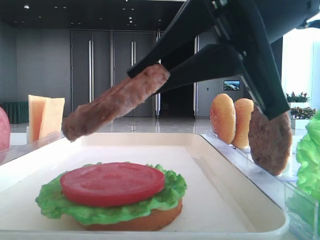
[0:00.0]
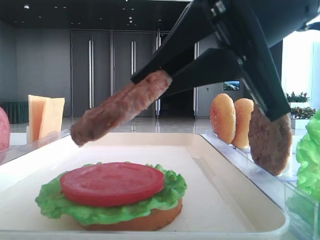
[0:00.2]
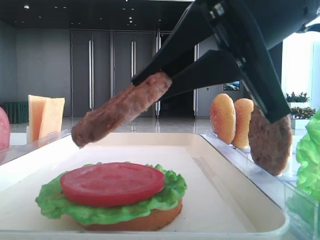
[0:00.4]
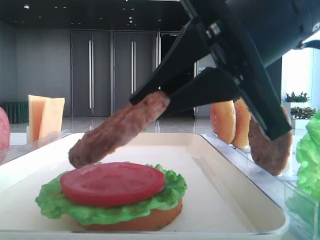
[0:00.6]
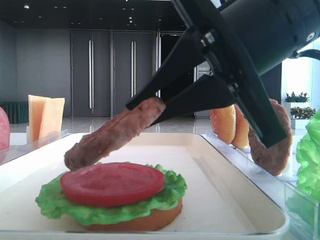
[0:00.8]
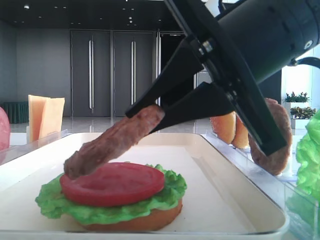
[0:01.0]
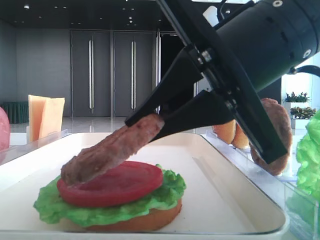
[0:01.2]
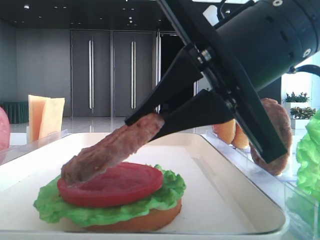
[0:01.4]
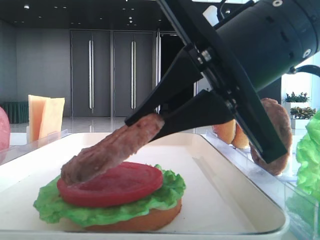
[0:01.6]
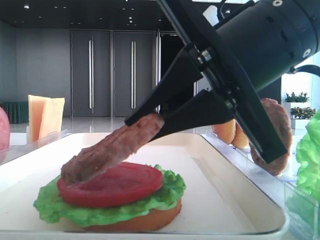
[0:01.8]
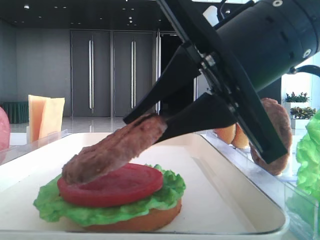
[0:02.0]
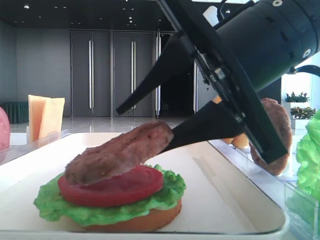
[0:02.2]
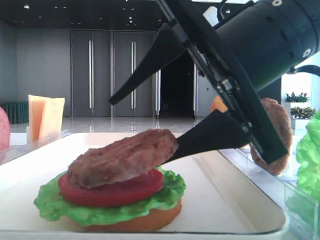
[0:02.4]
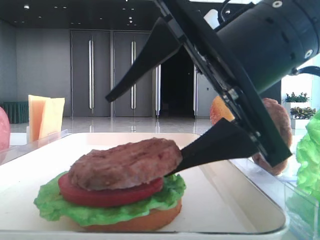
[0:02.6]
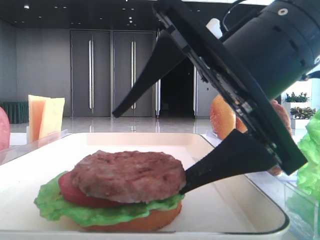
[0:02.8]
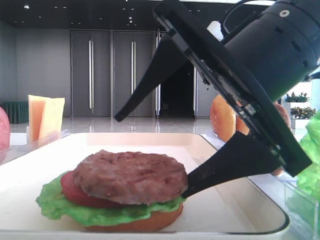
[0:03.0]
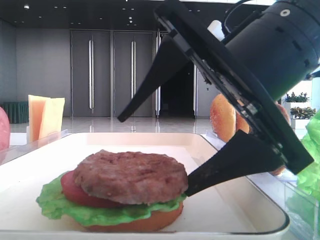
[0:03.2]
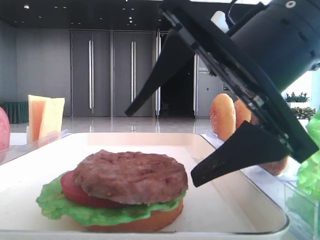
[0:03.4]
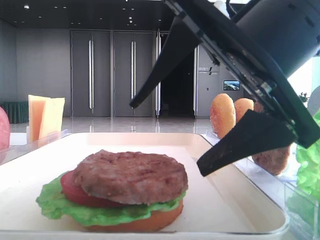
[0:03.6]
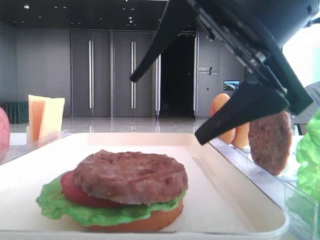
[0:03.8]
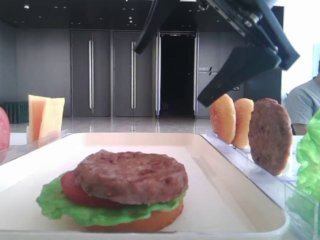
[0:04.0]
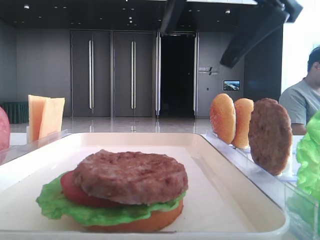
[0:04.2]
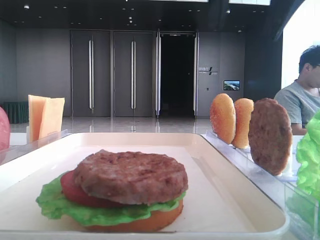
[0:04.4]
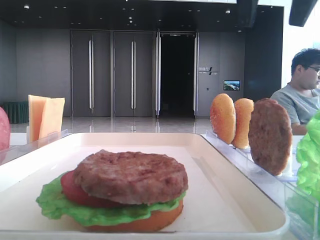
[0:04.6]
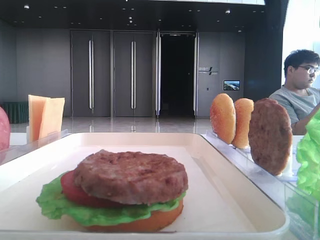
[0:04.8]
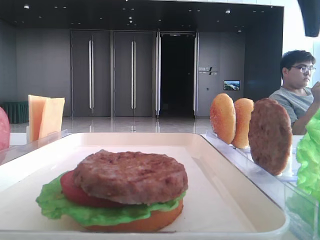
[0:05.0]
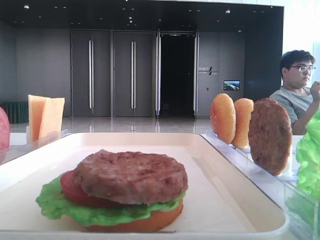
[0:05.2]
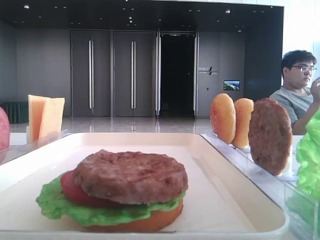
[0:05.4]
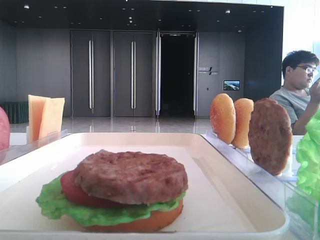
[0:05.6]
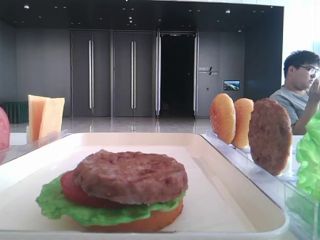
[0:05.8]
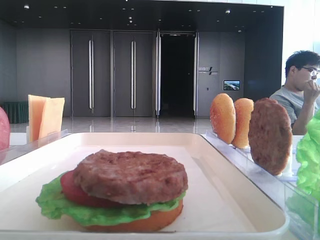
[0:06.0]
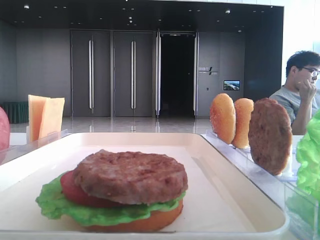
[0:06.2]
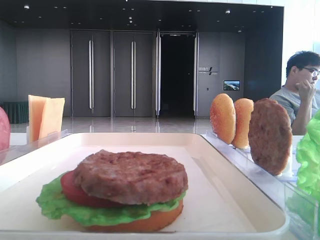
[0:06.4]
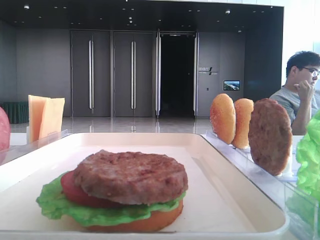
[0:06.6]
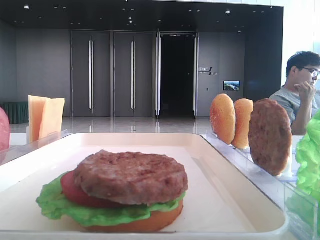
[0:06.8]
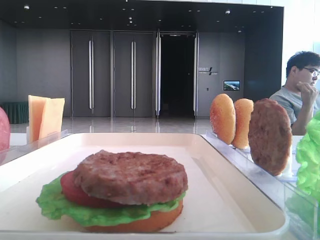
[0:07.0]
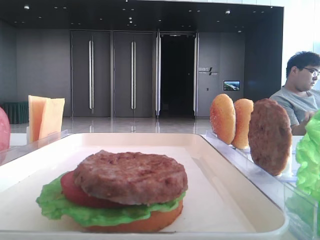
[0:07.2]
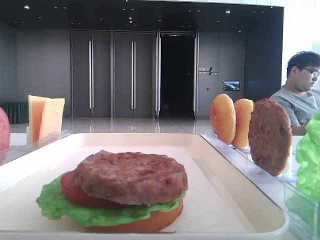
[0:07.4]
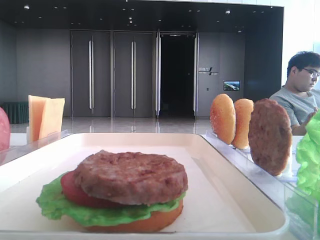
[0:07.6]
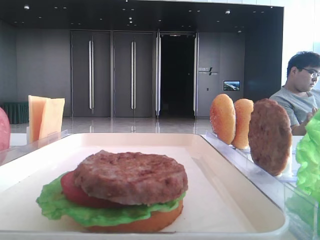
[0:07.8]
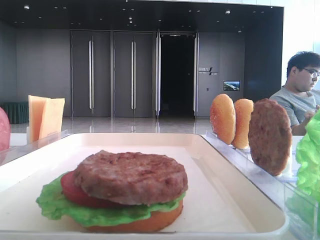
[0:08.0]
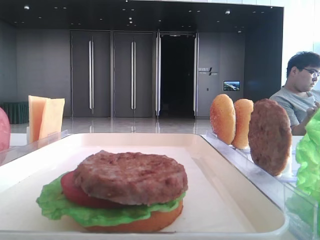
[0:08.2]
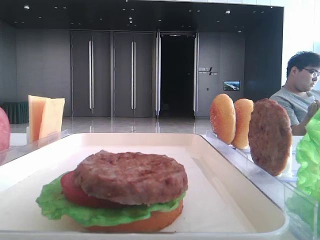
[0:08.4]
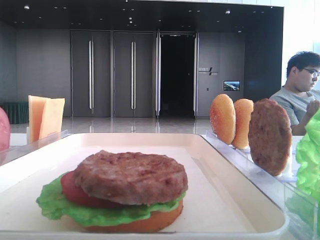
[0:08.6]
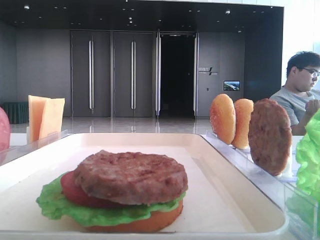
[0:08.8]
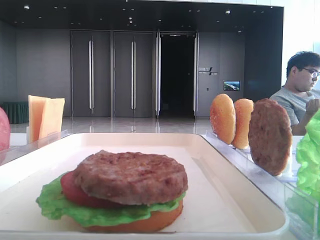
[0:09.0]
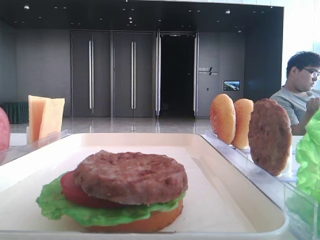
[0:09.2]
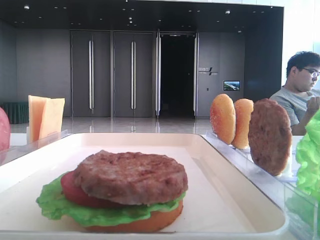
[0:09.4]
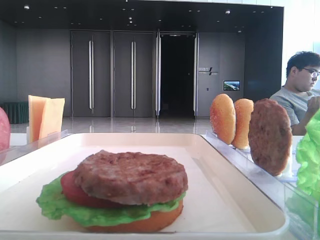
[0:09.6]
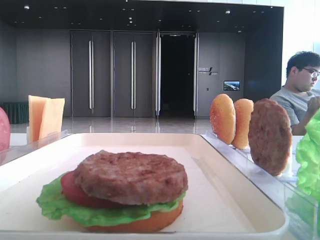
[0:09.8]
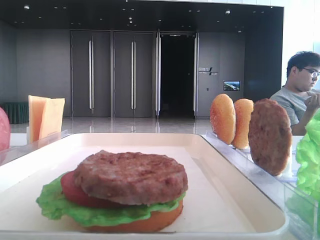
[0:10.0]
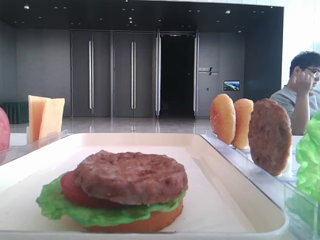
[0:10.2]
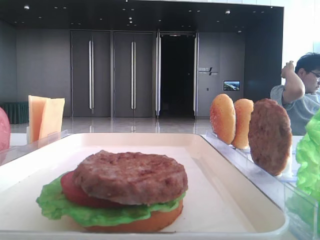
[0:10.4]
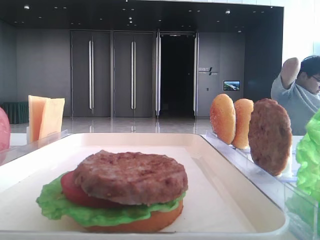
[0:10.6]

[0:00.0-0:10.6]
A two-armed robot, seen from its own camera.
Step, 0:00.0 to 0:03.2: Place the patty on the tomato slice with the right hand.
0:01.6 to 0:03.0: The right gripper opens its fingers.
0:03.0 to 0:04.6: The right gripper goes about 20 cm upward and forward.
0:04.6 to 0:06.0: The right gripper goes roughly 20 cm to the right.
0:06.0 to 0:07.6: The right gripper travels backward by about 35 cm.
0:09.0 to 0:10.6: The grippers move only a little.

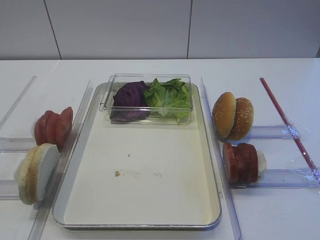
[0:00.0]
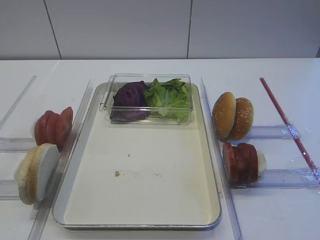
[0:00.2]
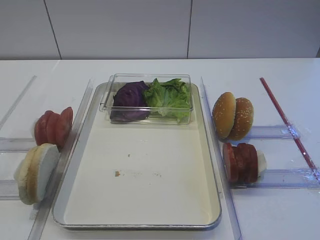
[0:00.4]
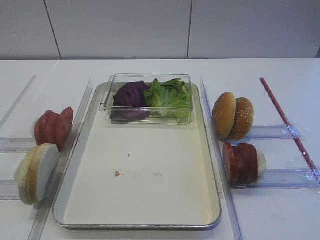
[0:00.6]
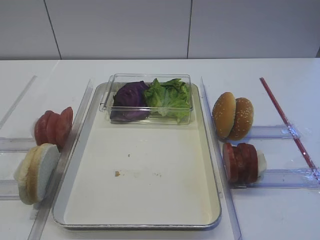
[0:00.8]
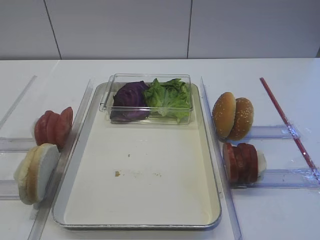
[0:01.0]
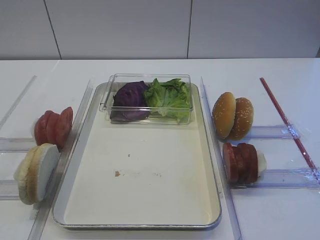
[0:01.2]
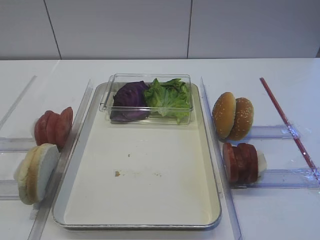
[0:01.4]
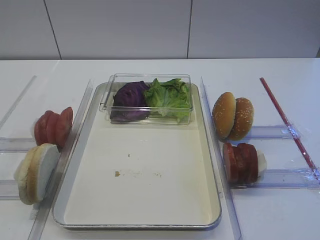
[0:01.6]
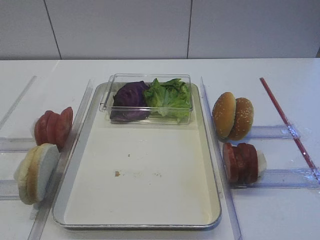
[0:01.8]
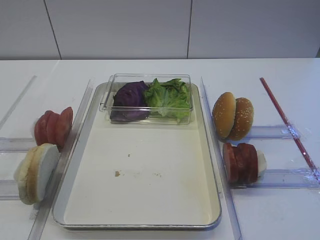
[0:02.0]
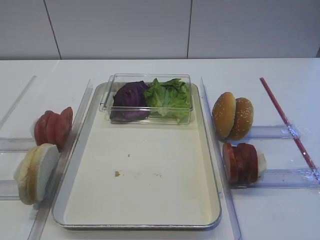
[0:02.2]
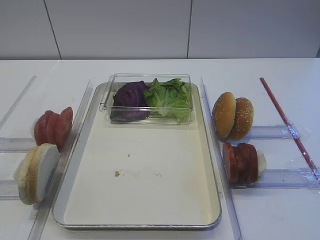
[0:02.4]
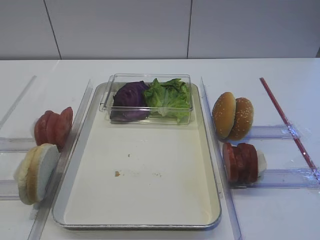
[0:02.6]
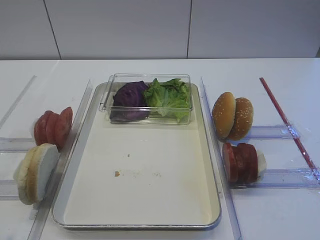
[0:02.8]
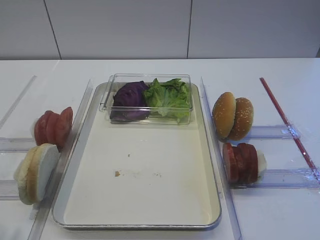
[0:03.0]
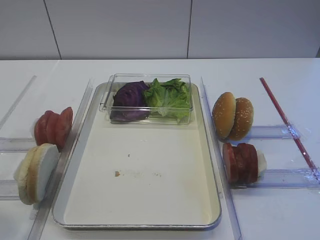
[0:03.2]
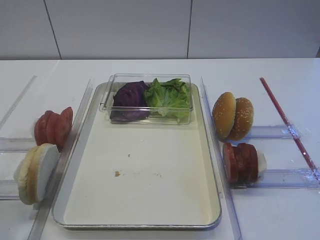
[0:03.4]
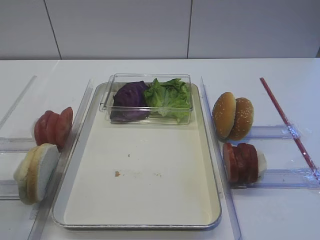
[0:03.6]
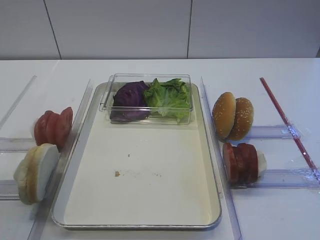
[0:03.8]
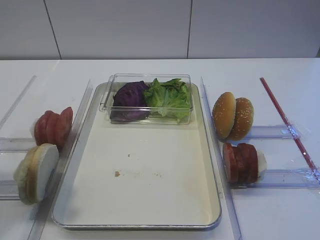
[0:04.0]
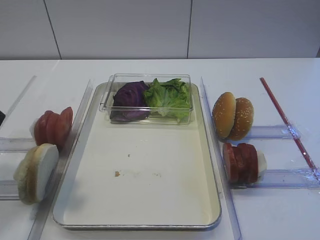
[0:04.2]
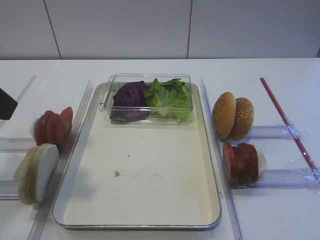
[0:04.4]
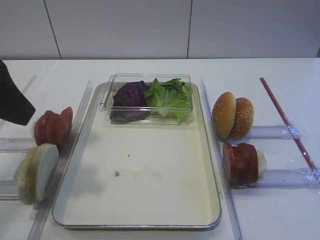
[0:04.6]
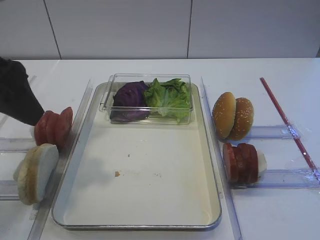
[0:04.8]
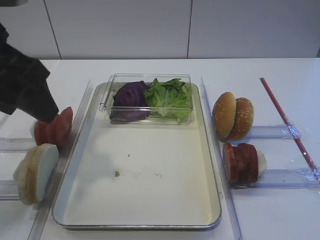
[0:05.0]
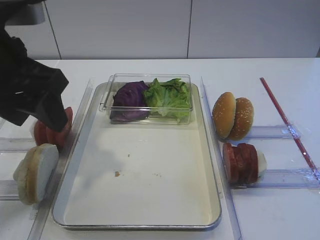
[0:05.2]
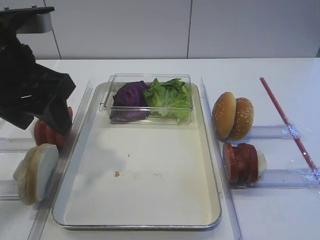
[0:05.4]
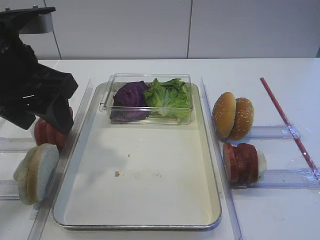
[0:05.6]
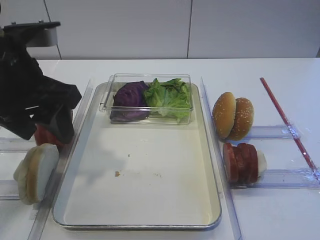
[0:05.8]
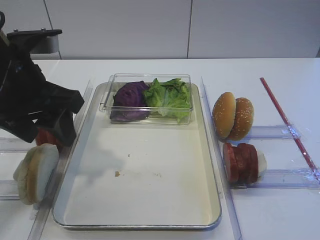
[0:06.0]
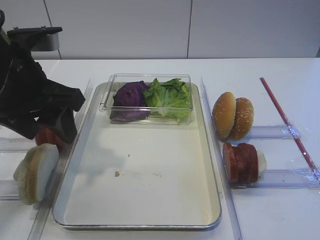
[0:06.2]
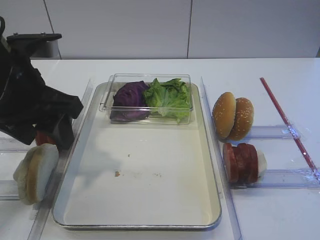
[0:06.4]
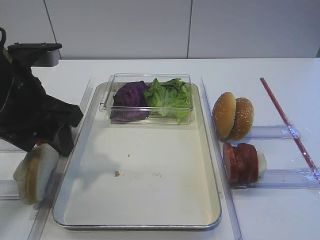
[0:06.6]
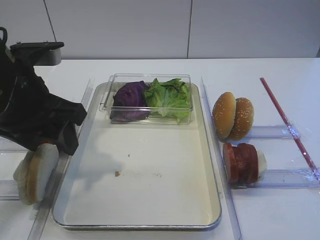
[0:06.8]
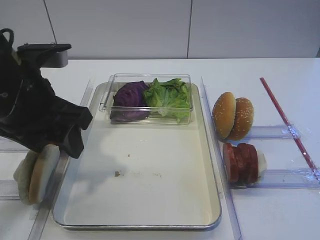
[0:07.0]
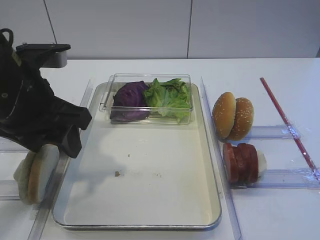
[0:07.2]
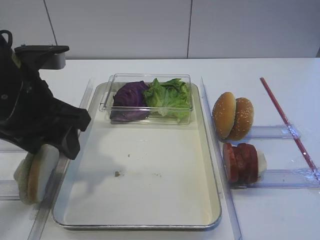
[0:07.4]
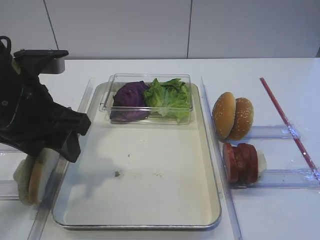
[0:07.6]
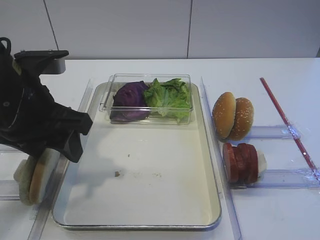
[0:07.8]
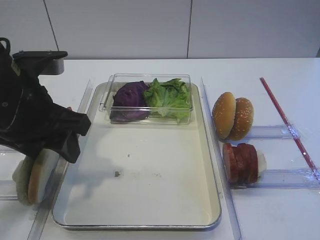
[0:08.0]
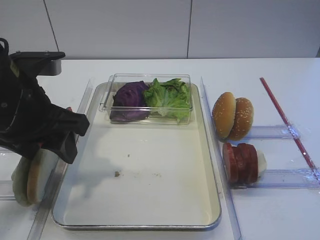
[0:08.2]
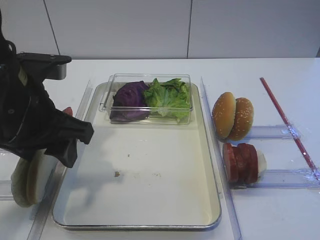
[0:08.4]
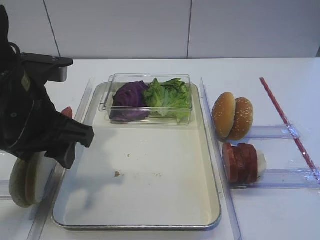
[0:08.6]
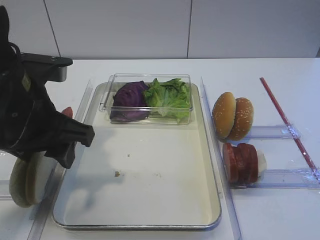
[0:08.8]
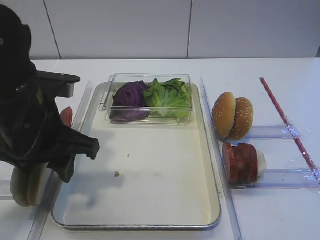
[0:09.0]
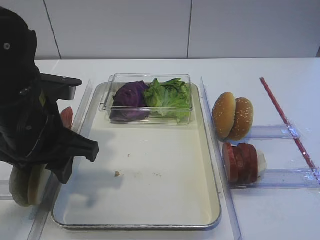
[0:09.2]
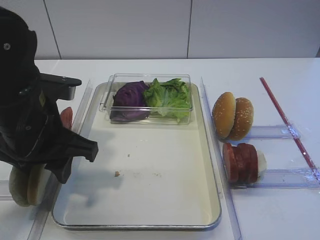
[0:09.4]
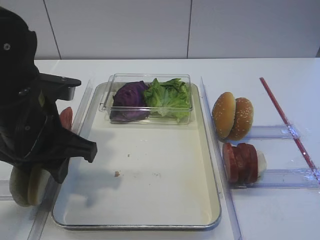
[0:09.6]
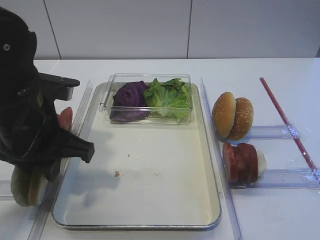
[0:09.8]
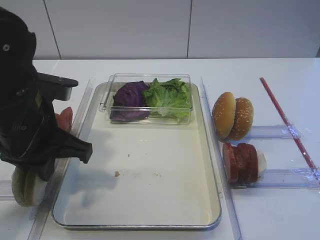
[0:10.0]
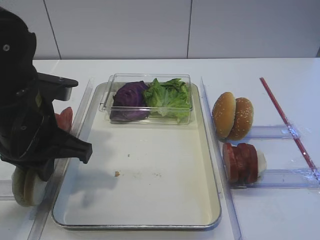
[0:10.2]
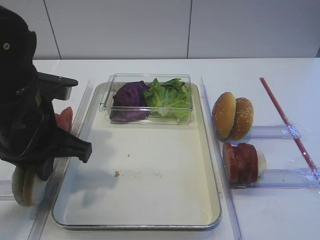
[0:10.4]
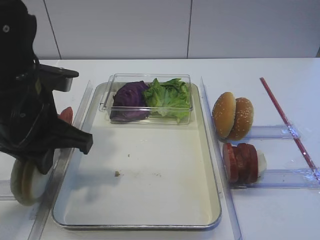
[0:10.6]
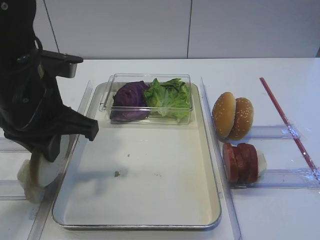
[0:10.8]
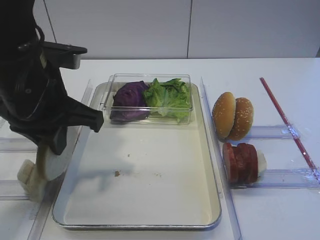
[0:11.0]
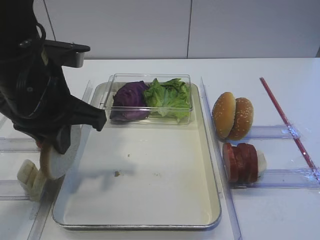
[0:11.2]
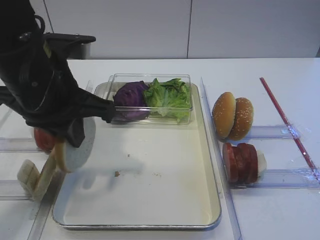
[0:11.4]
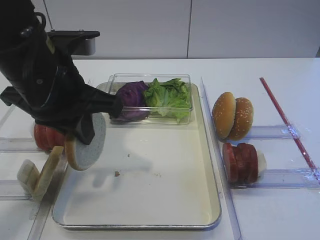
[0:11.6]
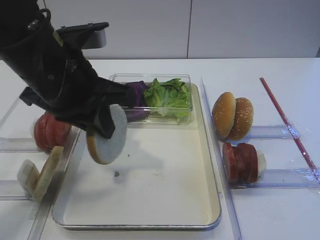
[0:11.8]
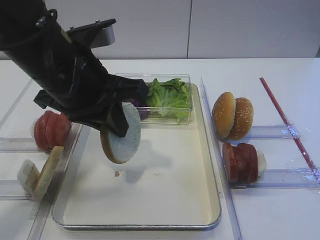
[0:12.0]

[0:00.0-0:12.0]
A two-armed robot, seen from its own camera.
Step, 0:00.0 to 0:10.6: Pick up the bread slice with the left gripper.
0:03.0 to 0:04.4: The left gripper is displaced forward by some 15 cm.
0:04.4 to 0:06.0: The left gripper shifts some 10 cm forward, downward and to the right.
0:06.0 to 0:09.0: The grippers make only small movements.
0:09.0 to 0:10.4: The left gripper closes.
0:10.4 to 0:12.0: The left gripper shifts some 5 cm upward.
